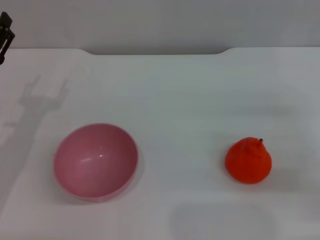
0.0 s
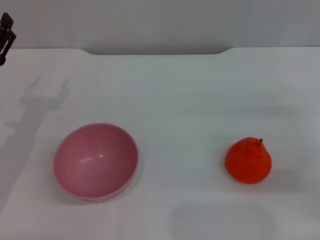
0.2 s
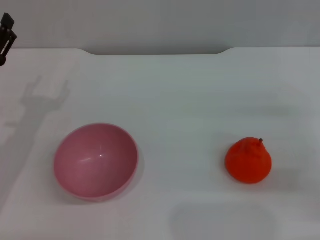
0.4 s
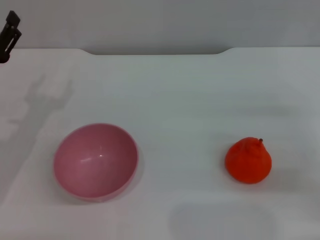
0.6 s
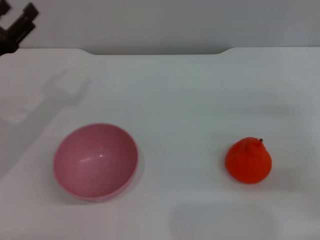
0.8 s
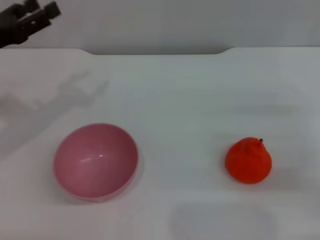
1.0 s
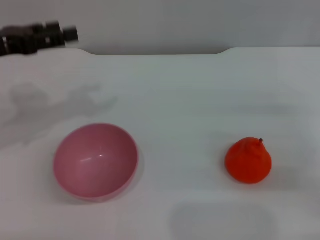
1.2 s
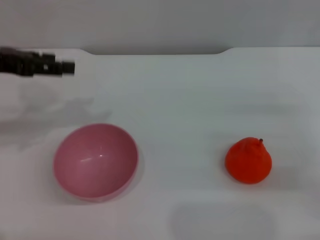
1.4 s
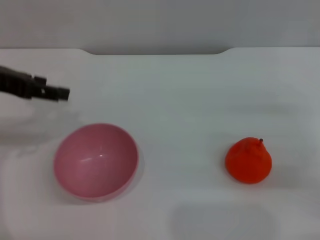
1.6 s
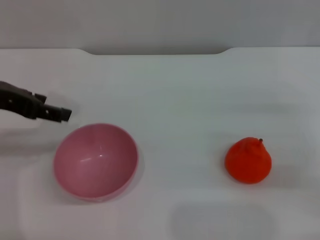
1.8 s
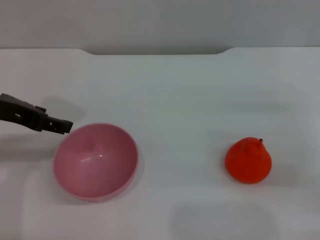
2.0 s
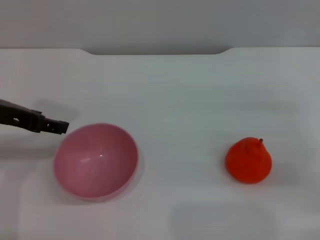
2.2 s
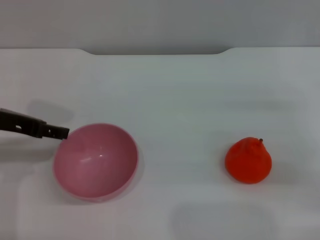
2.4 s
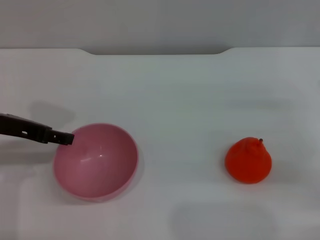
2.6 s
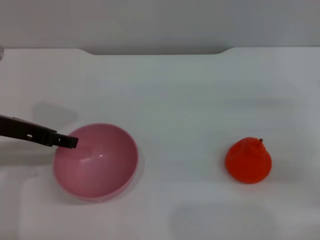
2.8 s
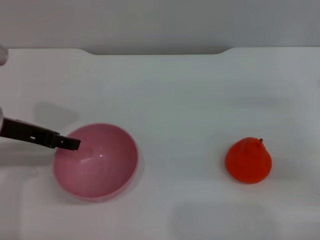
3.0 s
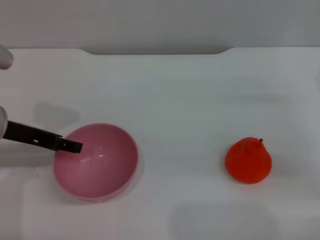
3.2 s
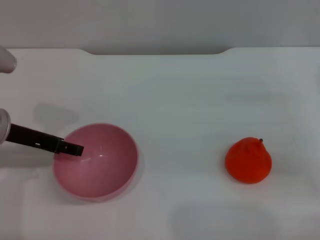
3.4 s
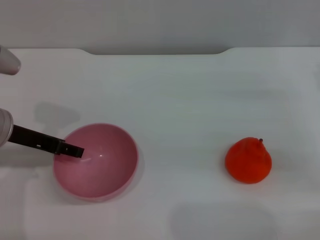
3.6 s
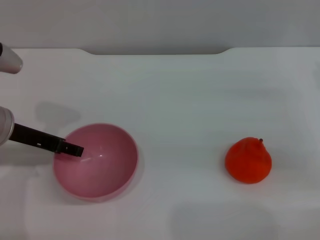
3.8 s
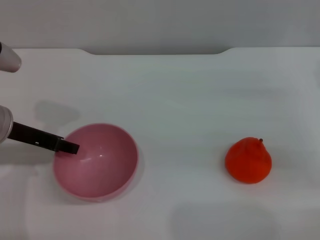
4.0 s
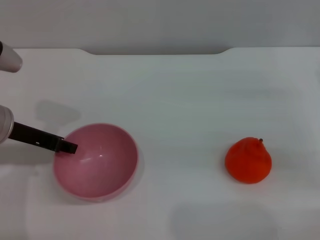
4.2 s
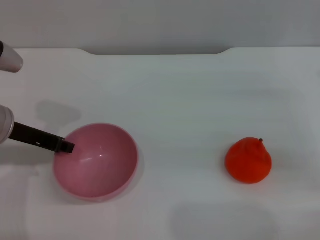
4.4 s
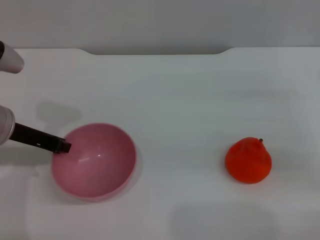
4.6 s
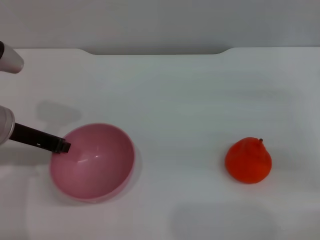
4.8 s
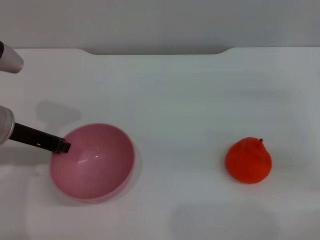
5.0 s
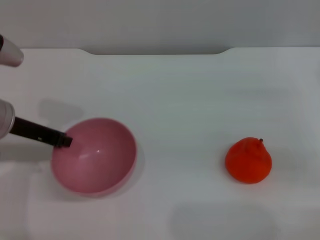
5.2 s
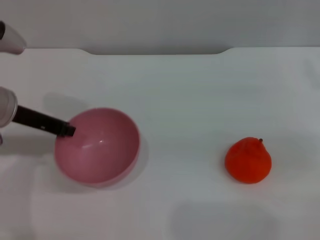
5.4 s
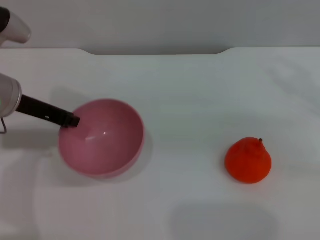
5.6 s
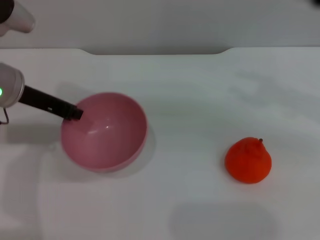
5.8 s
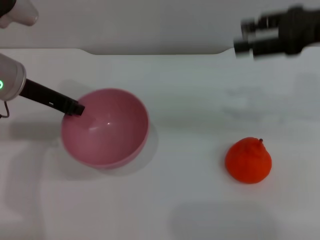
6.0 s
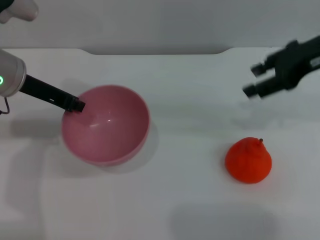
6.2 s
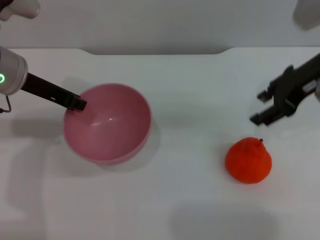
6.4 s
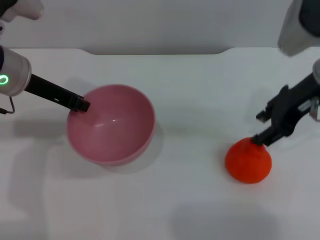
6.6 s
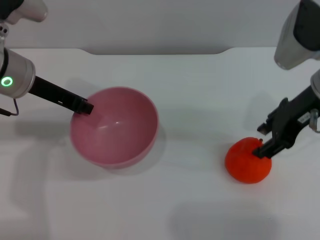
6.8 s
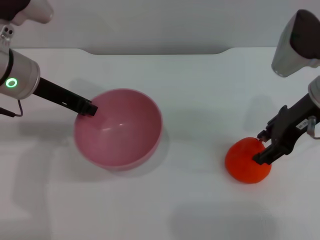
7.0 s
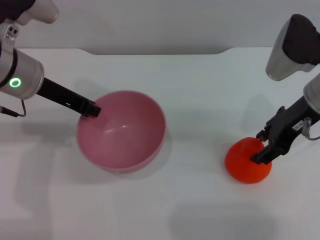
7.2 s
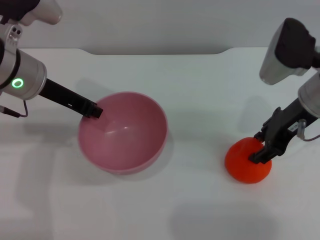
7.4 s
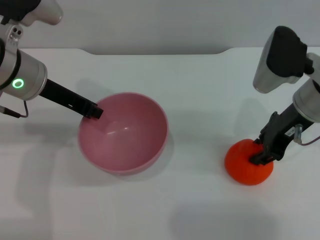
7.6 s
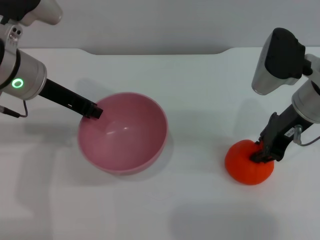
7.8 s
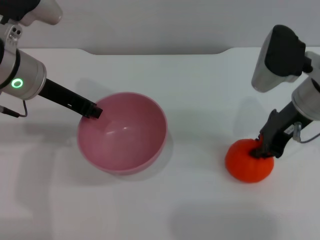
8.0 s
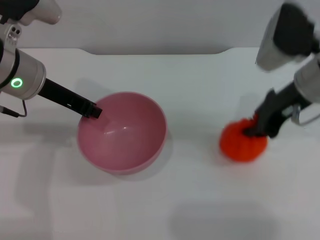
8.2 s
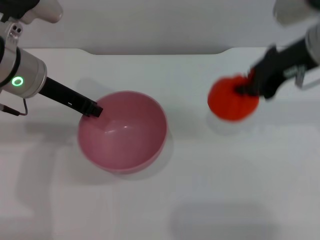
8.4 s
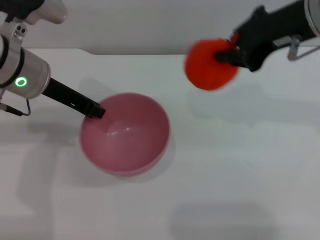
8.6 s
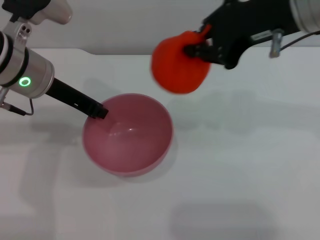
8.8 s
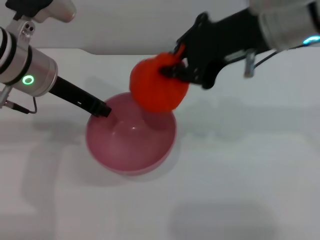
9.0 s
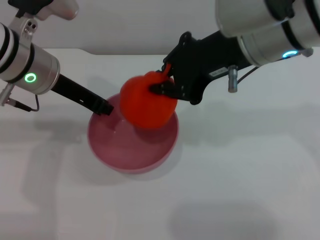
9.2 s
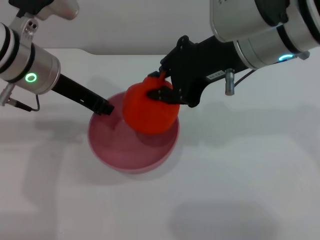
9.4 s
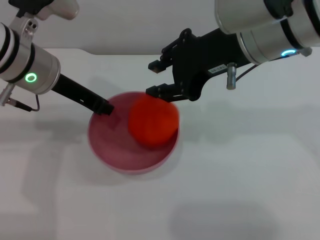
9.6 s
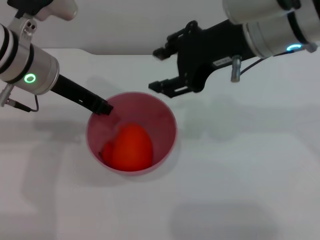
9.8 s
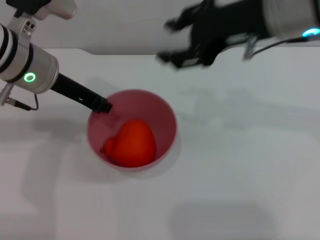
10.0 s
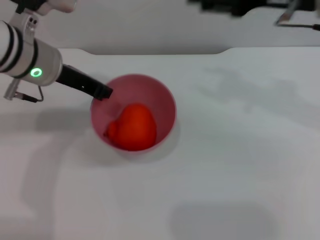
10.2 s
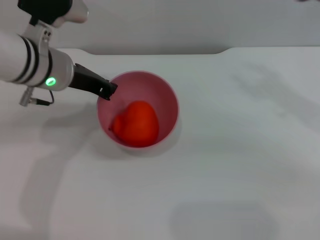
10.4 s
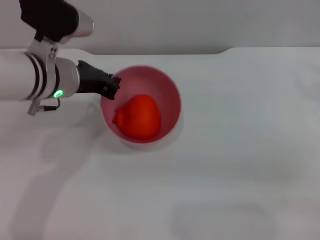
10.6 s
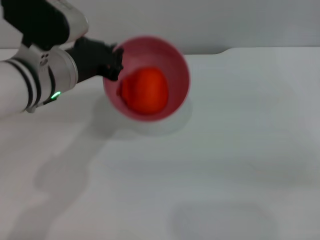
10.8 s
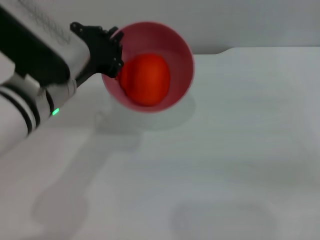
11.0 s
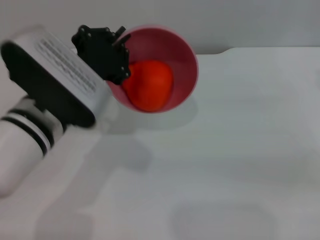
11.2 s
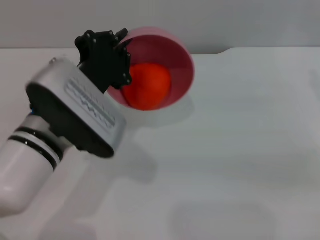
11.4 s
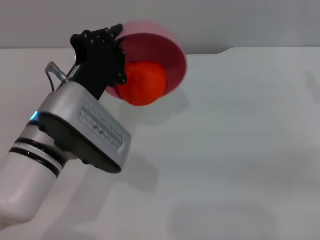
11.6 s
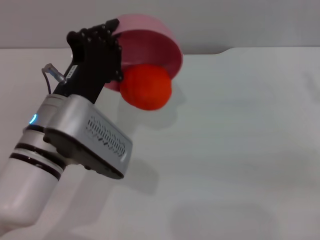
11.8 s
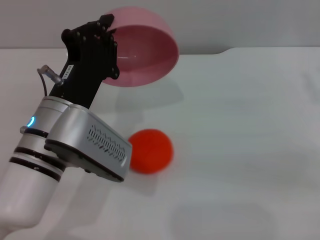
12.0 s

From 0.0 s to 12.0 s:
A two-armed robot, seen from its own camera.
Task of the whole recording: put the orange into the pink bowl and pour it out repeatedly.
Step, from 0.0 s to 5.6 s: Pick up the bowl with the left gripper.
Step, from 5.8 s to 8.4 s: Pick up the orange with the right gripper.
Step, from 8.6 s to 9.8 s: Place the orange into the bowl.
From 0.0 s to 1.6 s: The left gripper travels upward by approximately 15 cm.
From 1.6 s to 3.0 s: The left gripper moves downward, about 5 cm.
From 3.0 s to 4.4 s: The left gripper closes its fingers.
From 4.4 s to 6.0 s: The right gripper goes approximately 15 cm upward and to the left. Meanwhile the left gripper moves upward, some 5 cm, and closes.
From 6.0 s to 7.6 s: The right gripper is displaced downward and to the left by some 10 cm.
From 7.6 s to 9.0 s: The right gripper moves upward and to the left, some 15 cm, and closes up.
From 9.0 s to 10.4 s: The right gripper shifts about 15 cm to the right and downward, and opens.
From 10.4 s to 12.0 s: The left gripper moves backward, about 10 cm. The right gripper goes some 10 cm downward and to the right.

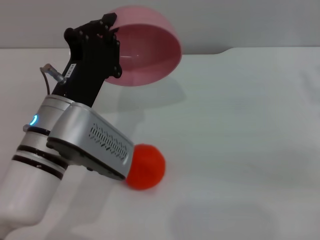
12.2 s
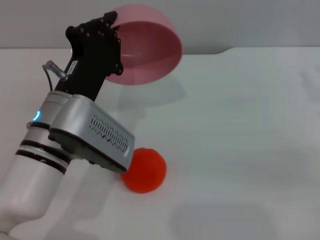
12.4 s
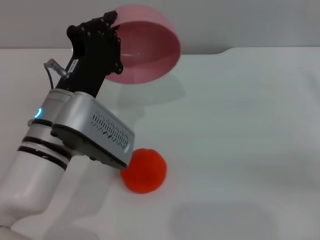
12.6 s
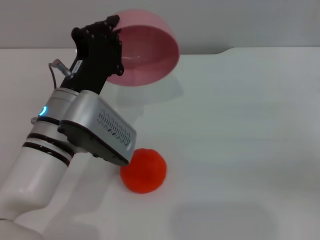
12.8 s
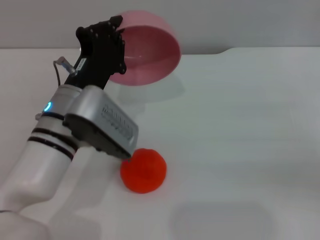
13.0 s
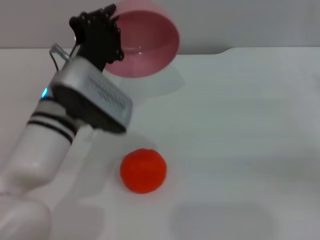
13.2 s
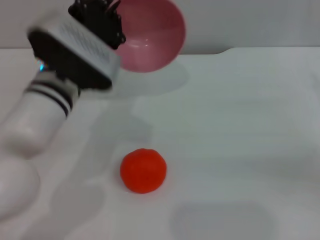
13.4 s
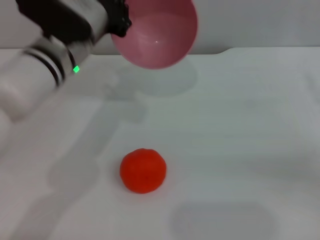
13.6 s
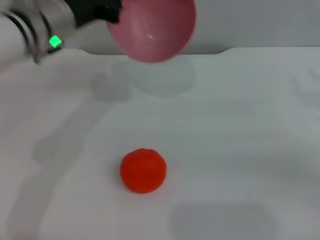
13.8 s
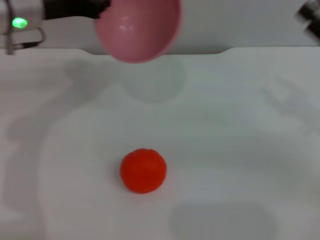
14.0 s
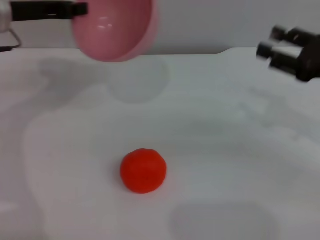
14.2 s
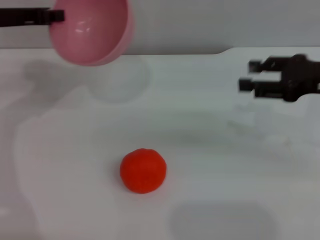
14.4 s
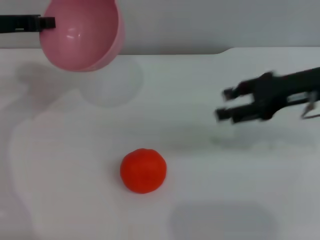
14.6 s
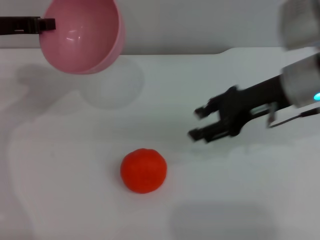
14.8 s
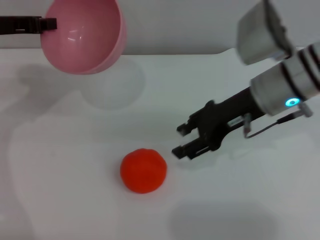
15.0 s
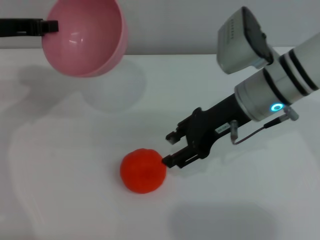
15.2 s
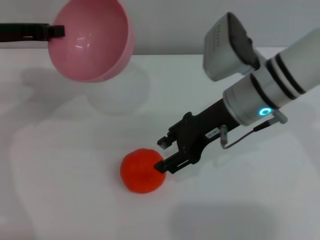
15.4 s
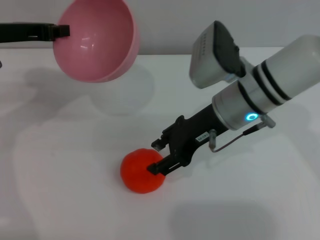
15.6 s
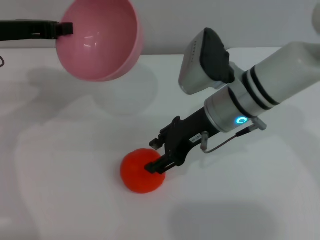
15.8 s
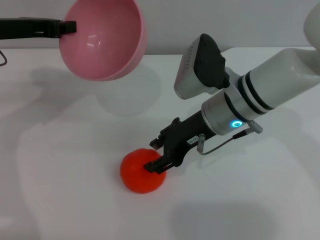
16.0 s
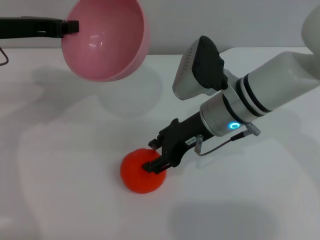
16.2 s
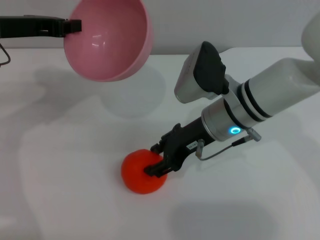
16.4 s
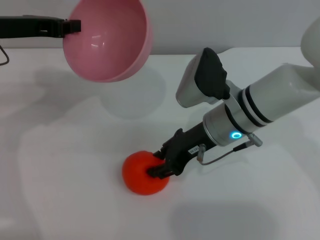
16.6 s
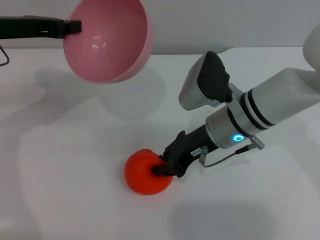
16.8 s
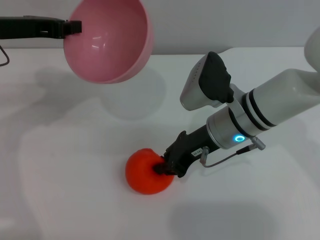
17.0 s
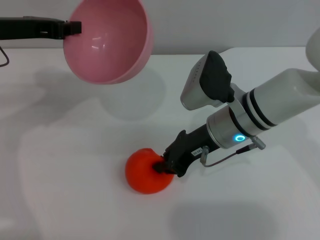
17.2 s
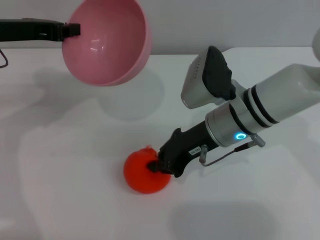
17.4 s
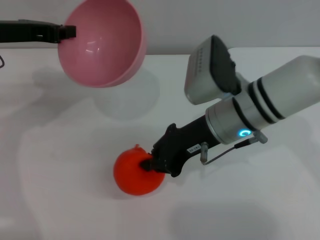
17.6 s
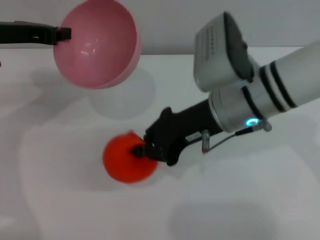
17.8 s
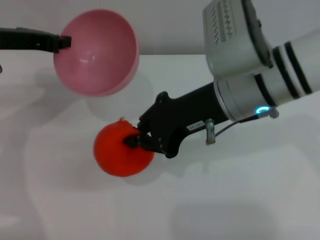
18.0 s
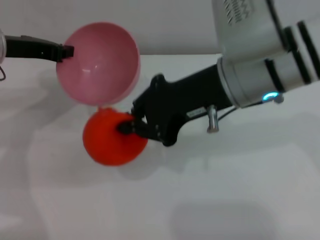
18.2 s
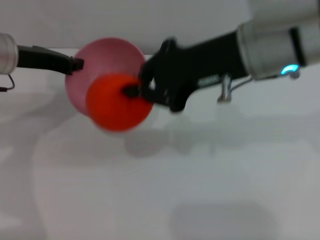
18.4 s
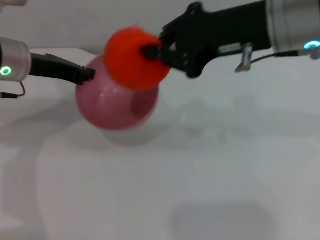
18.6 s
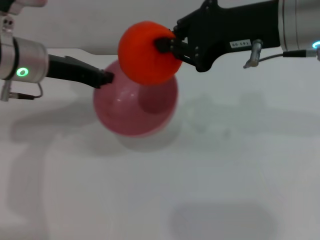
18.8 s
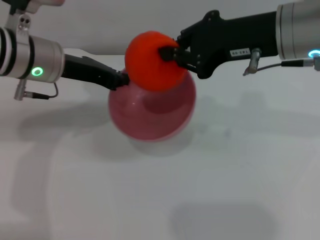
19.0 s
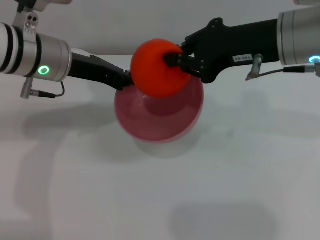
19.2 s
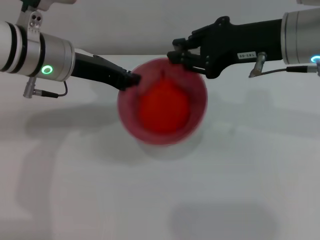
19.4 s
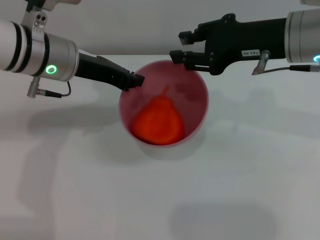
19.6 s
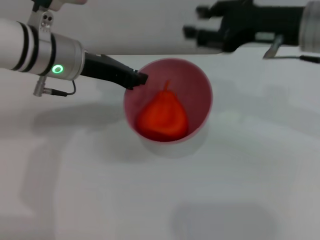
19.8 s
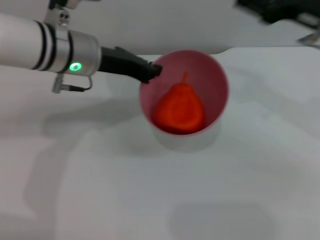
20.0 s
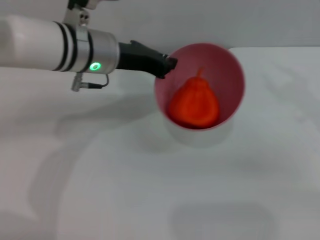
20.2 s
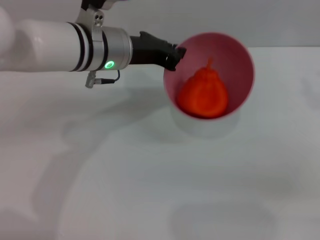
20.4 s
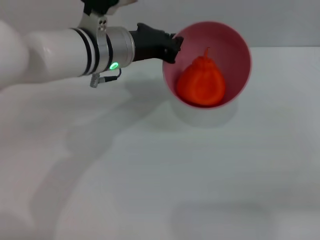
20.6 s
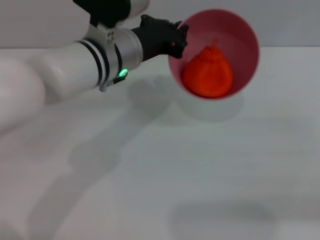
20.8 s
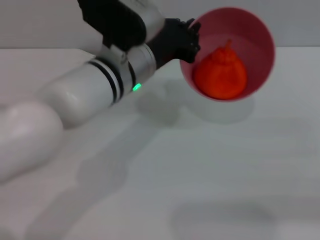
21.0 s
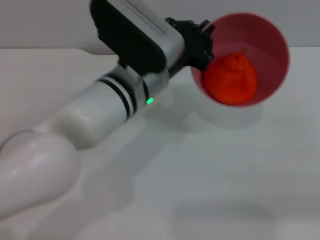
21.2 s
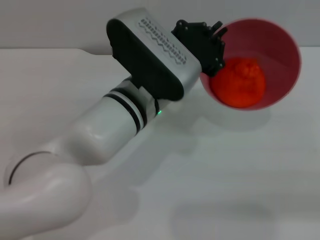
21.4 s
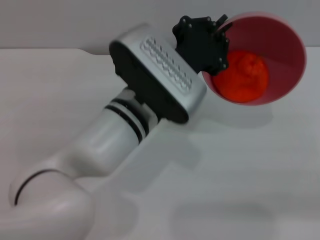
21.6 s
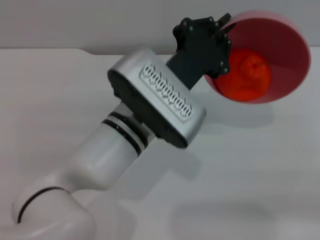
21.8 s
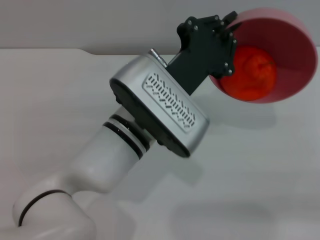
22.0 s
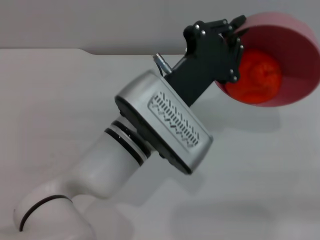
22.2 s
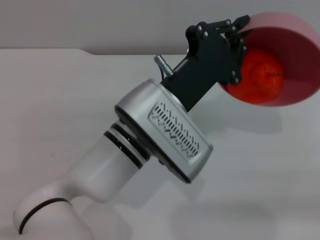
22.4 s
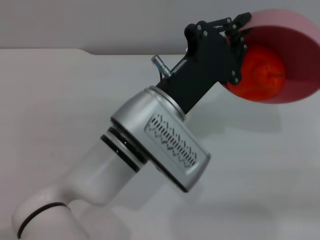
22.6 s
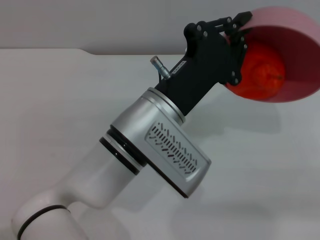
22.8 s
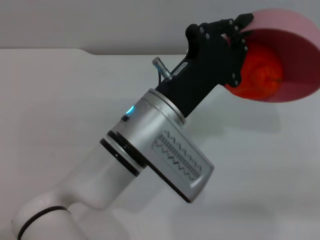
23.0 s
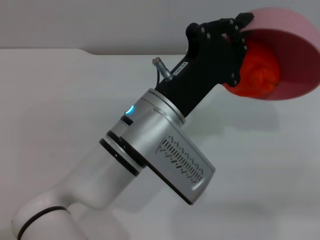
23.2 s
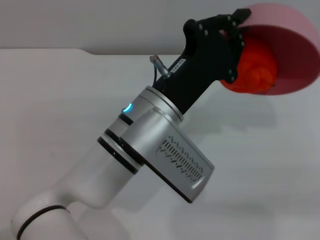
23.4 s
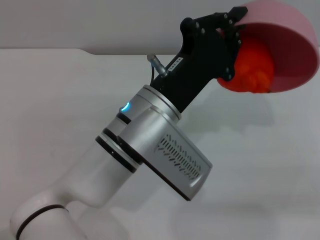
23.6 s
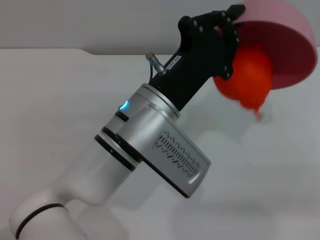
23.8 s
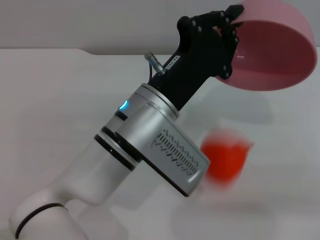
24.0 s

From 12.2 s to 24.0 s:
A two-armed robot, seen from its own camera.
Task of the whole recording: put the orange into the pink bowl and pour it out repeatedly.
Step, from 12.2 s to 17.6 s: Pick up the orange with the right gripper.
Step, from 17.8 s to 19.6 s: Place the orange into the bowl.
From 12.2 s to 13.6 s: The left gripper travels forward by approximately 10 cm.
From 13.6 s to 15.2 s: The two grippers go approximately 20 cm to the left.
From 15.2 s to 16.6 s: The right gripper travels downward by approximately 5 cm.
From 16.6 s to 18.2 s: The right gripper heads upward, covering about 15 cm, and closes.
From 18.2 s to 19.6 s: Both grippers travel together to the right, approximately 10 cm. The right gripper opens its fingers.
From 19.6 s to 21.0 s: The right gripper moves to the right, backward and downward, about 25 cm. Meanwhile the left gripper heads to the right, covering approximately 10 cm.
From 21.0 s to 22.6 s: The left gripper shifts some 10 cm backward.
From 22.6 s to 24.0 s: The grippers move only a little.
